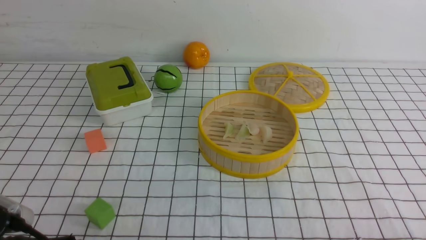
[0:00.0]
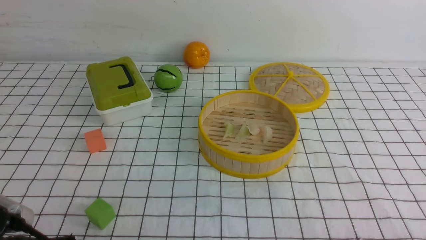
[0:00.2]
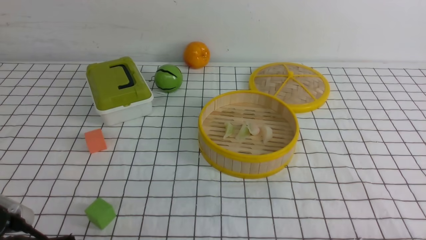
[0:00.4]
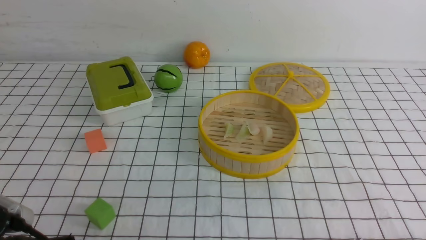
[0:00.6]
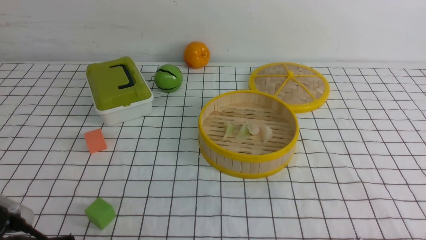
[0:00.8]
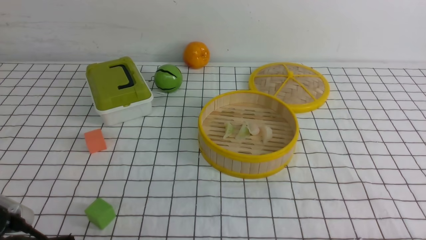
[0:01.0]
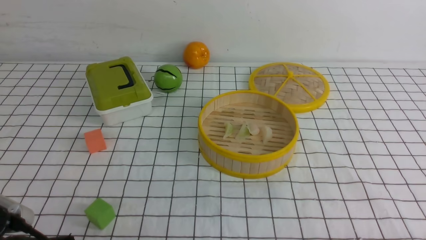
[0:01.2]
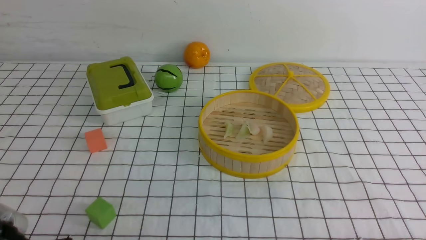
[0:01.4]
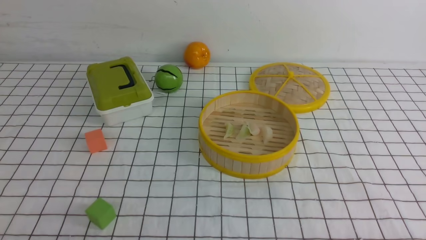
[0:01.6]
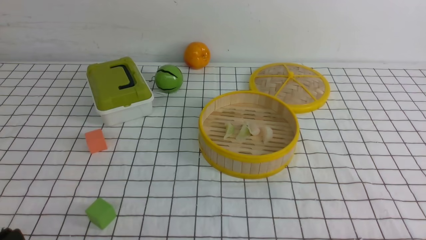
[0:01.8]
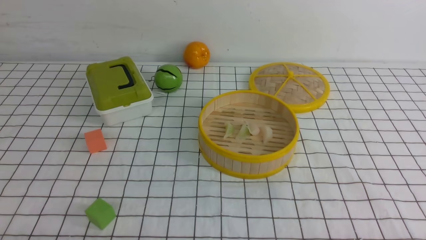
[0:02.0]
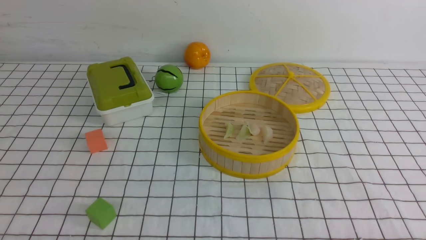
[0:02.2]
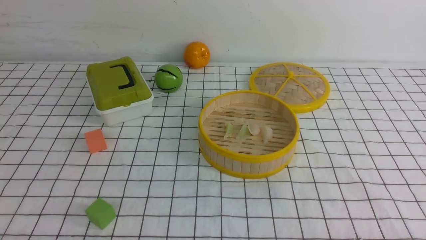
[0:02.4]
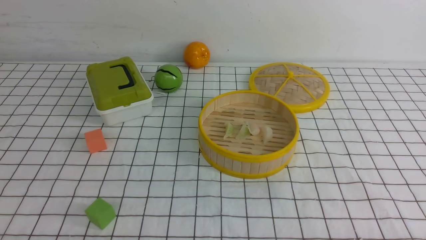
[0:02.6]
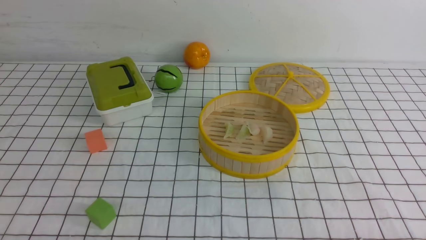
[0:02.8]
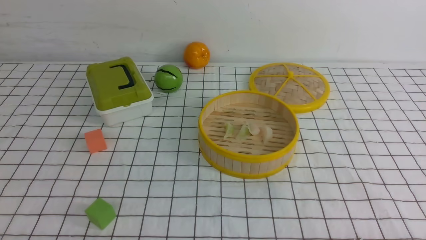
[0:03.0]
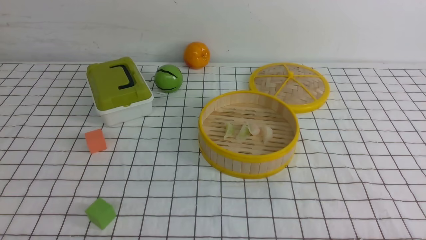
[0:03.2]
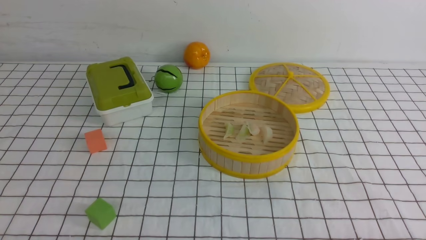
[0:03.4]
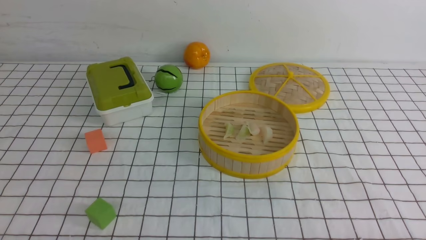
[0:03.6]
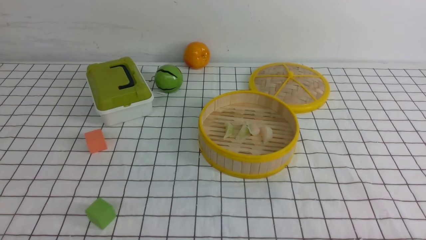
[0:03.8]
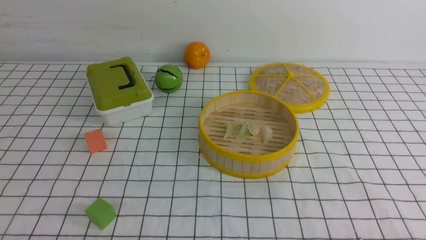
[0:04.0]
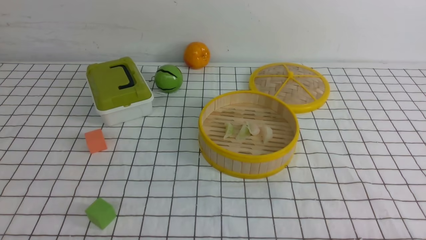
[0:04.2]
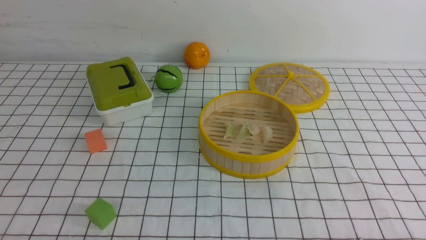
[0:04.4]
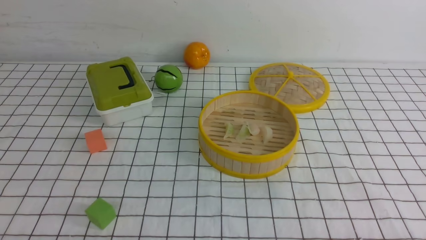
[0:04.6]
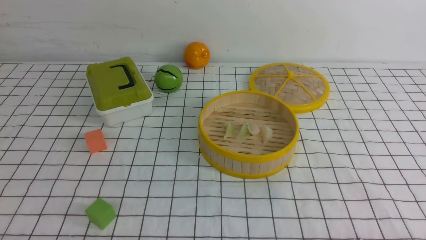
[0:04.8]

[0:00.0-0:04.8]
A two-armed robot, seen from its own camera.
Task of the whole recording: put the dumplings into the steamer on the table with the white tablecloth.
0:00.0 to 0:01.6: The grippers stay close to where they were, moving slightly.
0:03.2 to 0:04.8: Neither gripper changes place.

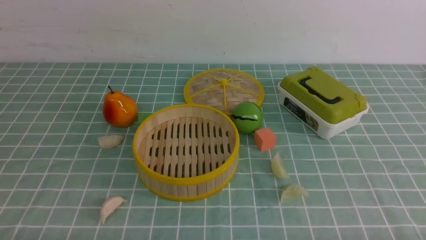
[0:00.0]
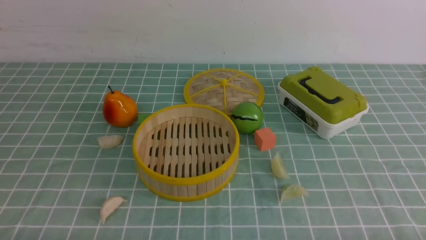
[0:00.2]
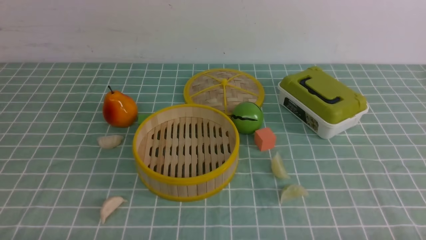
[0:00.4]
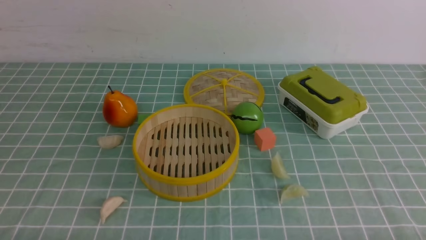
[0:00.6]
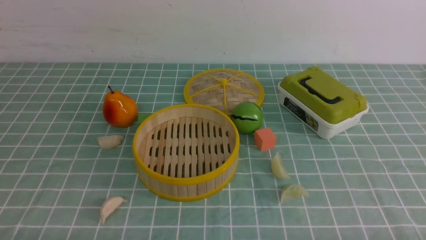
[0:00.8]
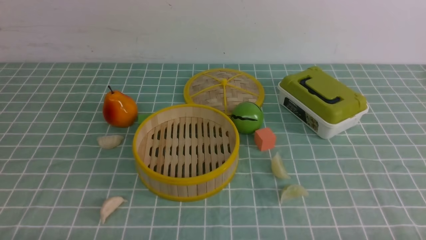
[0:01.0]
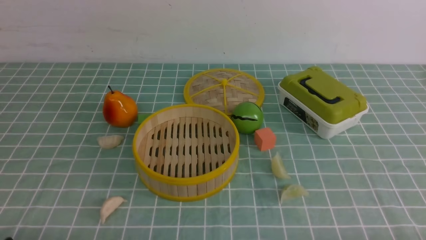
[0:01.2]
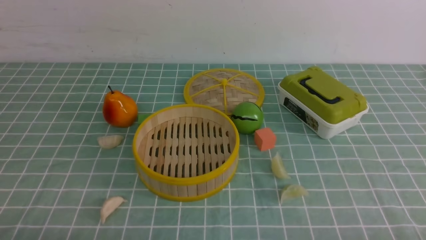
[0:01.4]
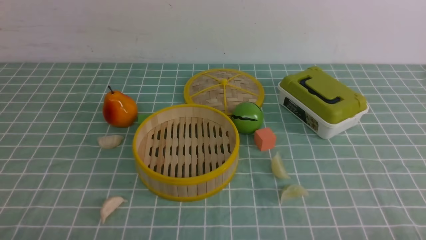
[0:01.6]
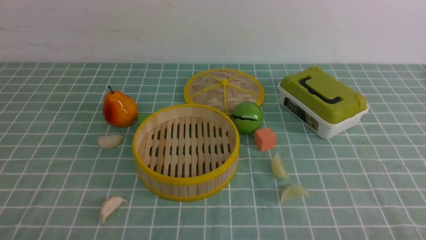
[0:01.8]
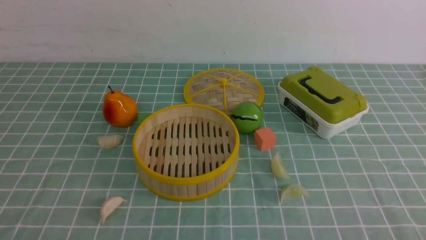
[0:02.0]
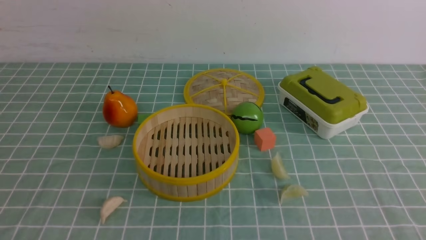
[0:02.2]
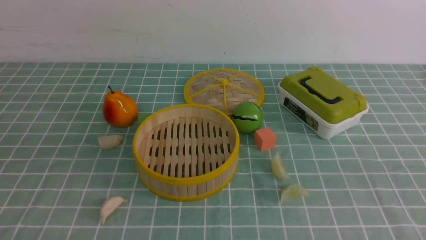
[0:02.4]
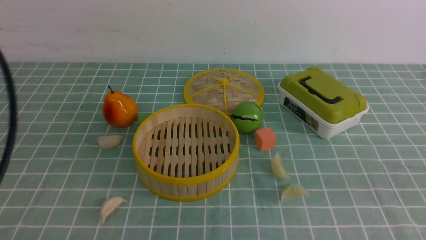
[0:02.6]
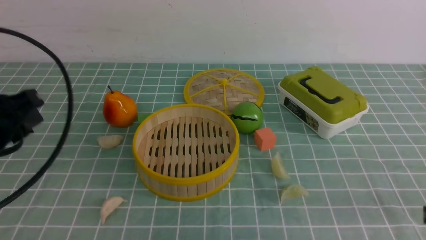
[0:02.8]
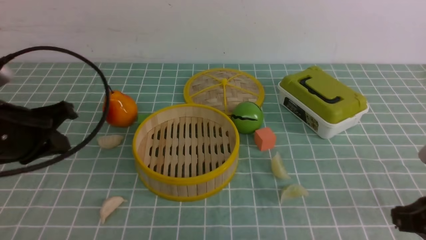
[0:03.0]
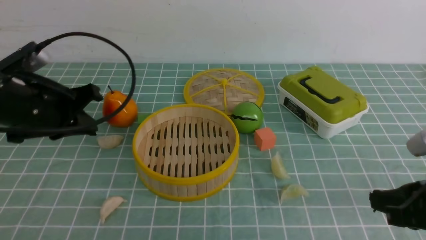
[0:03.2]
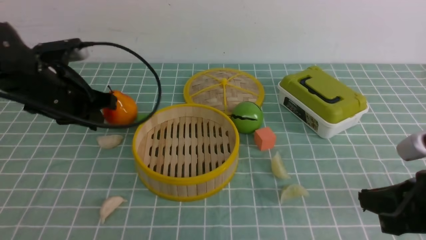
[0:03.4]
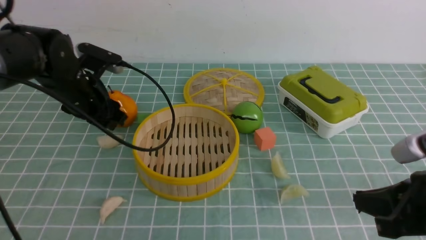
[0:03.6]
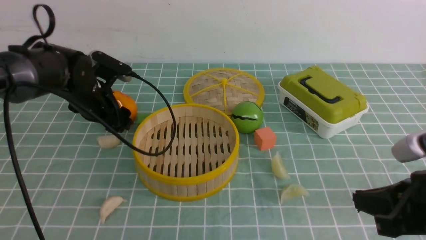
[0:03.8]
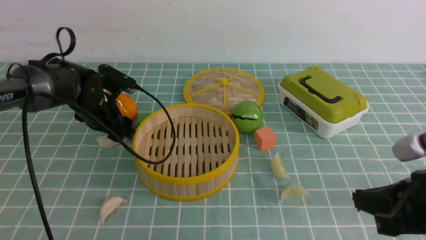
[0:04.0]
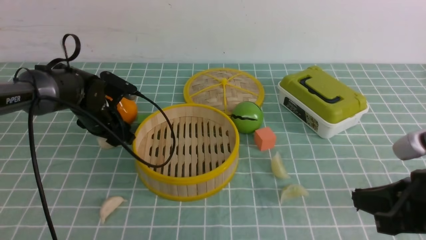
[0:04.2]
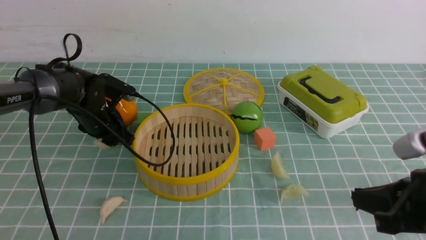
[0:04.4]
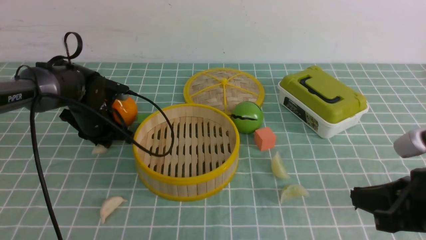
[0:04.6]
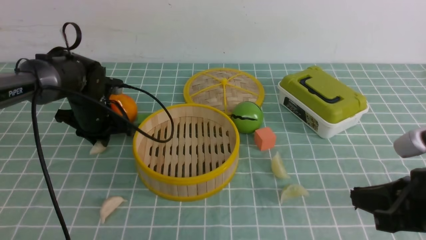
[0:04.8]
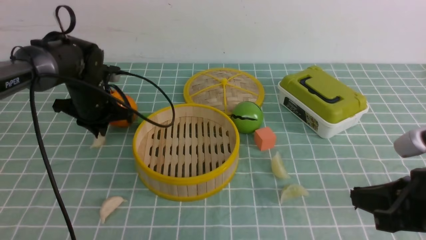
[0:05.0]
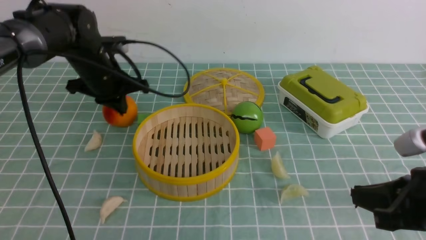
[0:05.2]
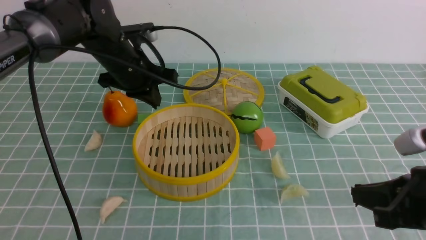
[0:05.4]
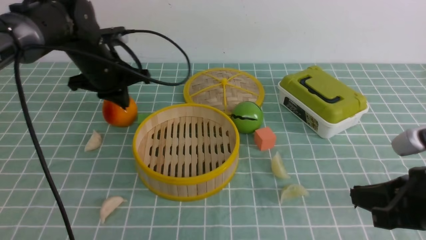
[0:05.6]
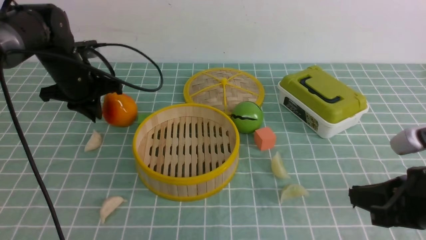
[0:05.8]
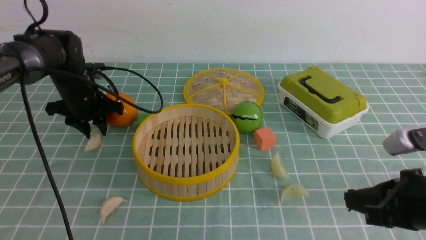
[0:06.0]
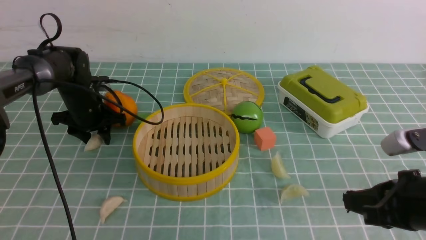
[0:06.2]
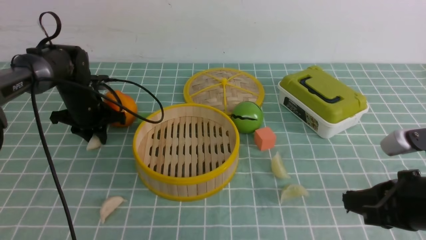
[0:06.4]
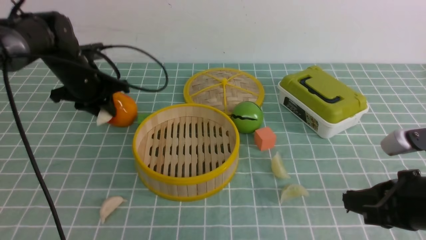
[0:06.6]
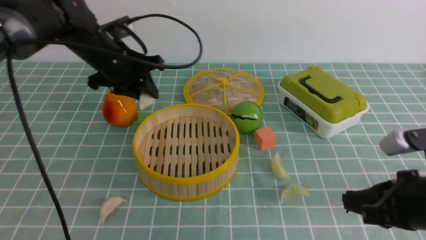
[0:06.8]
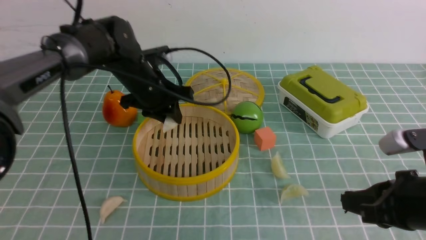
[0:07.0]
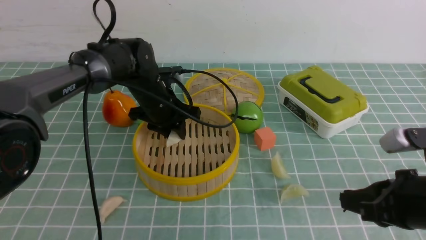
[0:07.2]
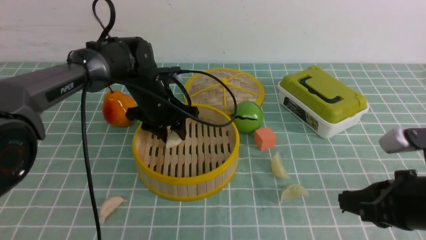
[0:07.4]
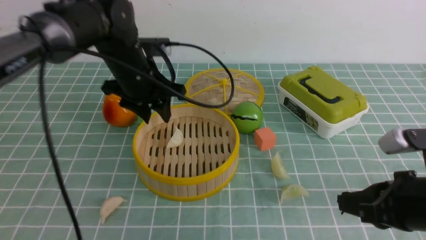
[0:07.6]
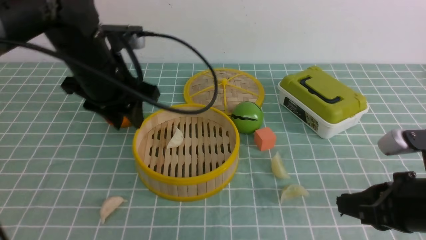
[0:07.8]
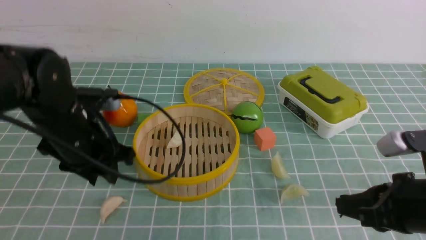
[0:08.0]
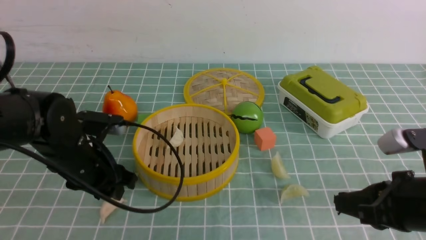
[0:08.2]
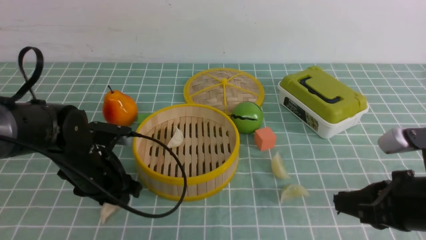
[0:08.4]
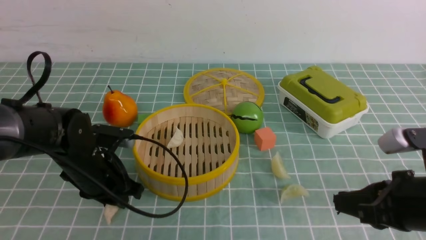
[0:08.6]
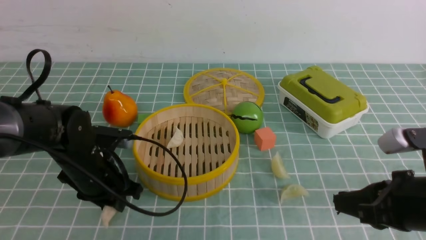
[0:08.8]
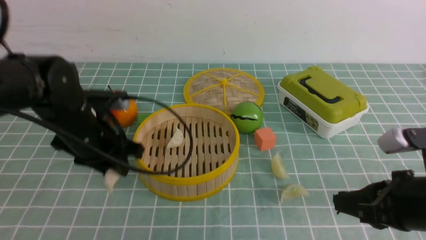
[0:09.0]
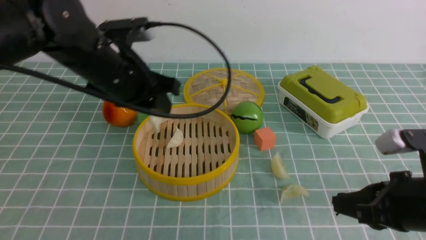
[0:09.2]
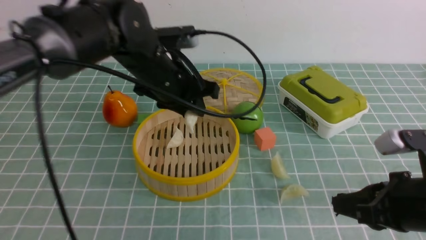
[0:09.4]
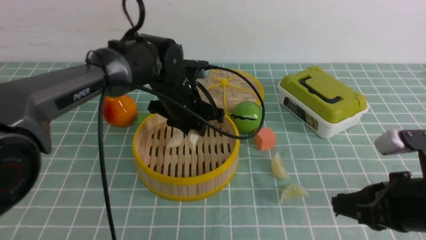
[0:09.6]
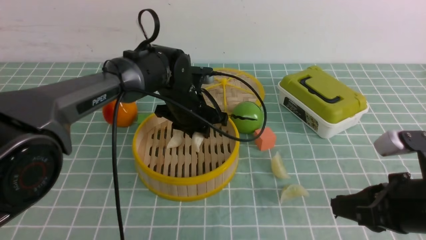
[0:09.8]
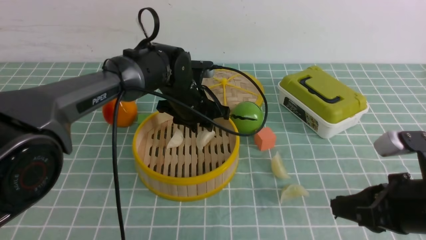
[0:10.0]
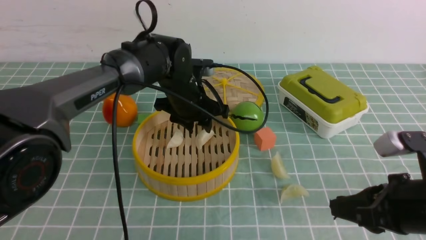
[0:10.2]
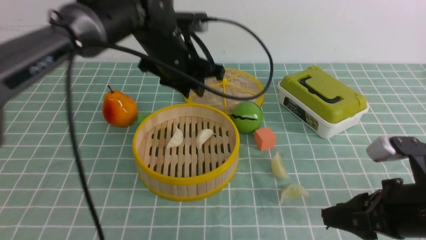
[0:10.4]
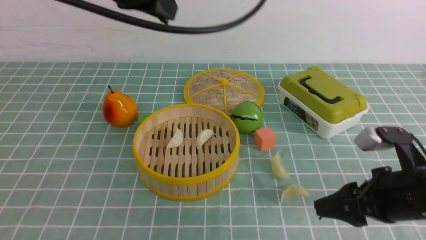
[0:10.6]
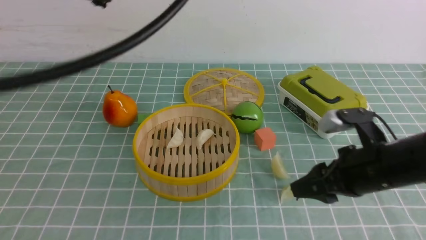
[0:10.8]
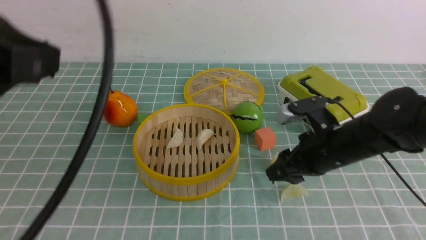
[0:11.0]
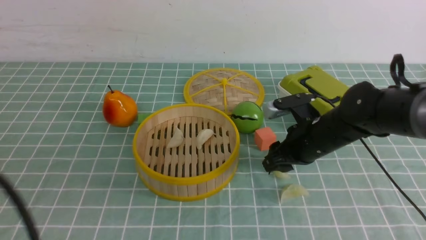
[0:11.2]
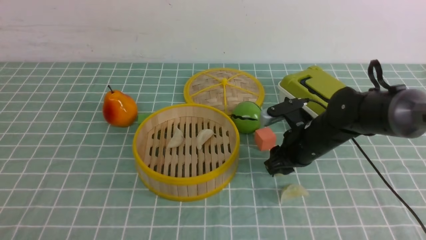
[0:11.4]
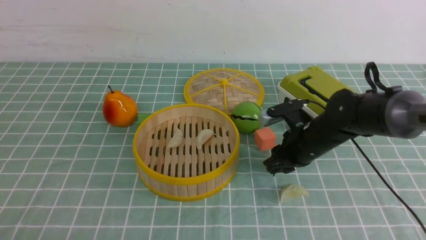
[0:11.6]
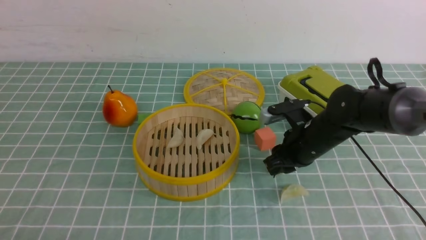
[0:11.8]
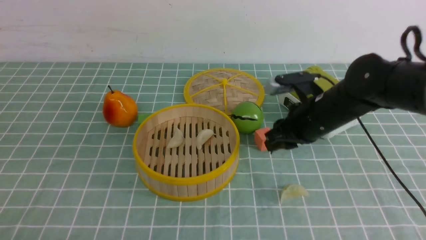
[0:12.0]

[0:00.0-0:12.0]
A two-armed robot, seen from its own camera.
Task of the whole recording: put the dumplings into the steamer on the table with the blue tablecloth.
Step, 0:00.0 to 0:06.2: use the left arm to grab a dumpling.
Step, 0:06.4 to 0:07.4: use the left arm to put the dumpling into the steamer.
Step, 0:07.6 to 0:08.6: use the left arm to grab a dumpling.
Step, 0:08.8 to 0:10.0: use the left arm to put the dumpling into the steamer.
Step, 0:10.2 to 0:11.6: use the right arm to grab a dumpling.
0:01.6 to 0:03.0: The left gripper shifts about 20 cm forward, and closes up; the right gripper moves forward, approximately 10 cm, and closes.
0:03.0 to 0:04.4: The left gripper travels forward and downward by about 25 cm, and opens.
0:04.4 to 0:06.0: The left gripper goes upward and returns, approximately 10 cm each way, and closes and opens again.
0:06.0 to 0:07.6: The left gripper is displaced to the right, upward and backward by some 15 cm.
0:07.6 to 0:09.0: The left gripper is displaced backward by about 5 cm, and goes downward and returns, approximately 10 cm each way.
0:09.0 to 0:10.4: The left gripper moves up and down over roughly 15 cm, changing direction 2 times, while the right gripper opens its fingers.
0:10.4 to 0:12.0: The right gripper is displaced forward and to the left by roughly 20 cm, while the left gripper goes about 40 cm backward and to the left, and closes its fingers.
